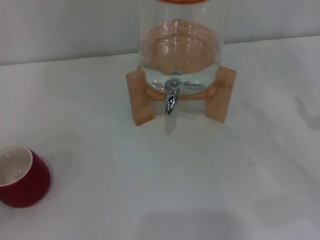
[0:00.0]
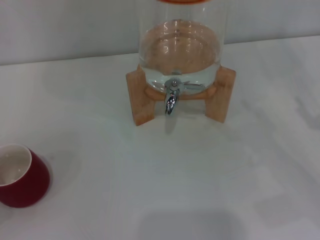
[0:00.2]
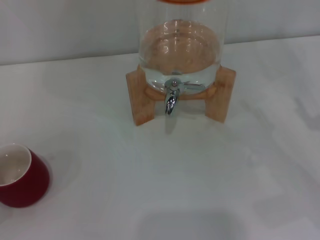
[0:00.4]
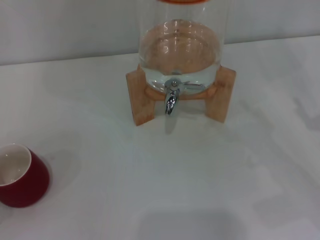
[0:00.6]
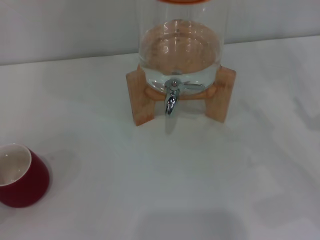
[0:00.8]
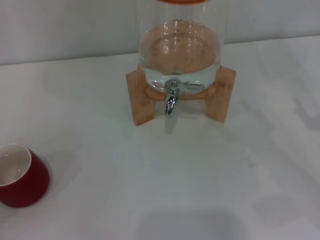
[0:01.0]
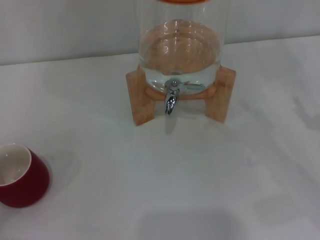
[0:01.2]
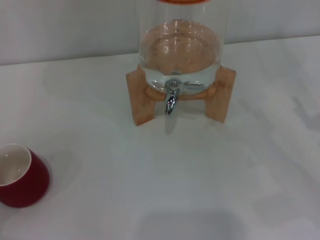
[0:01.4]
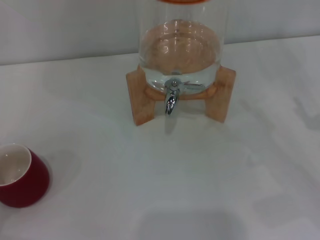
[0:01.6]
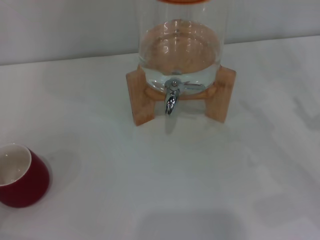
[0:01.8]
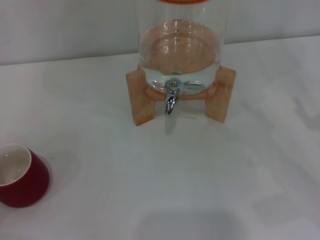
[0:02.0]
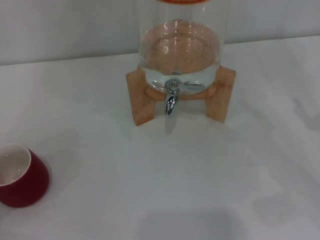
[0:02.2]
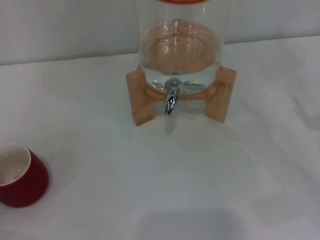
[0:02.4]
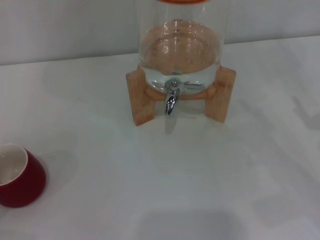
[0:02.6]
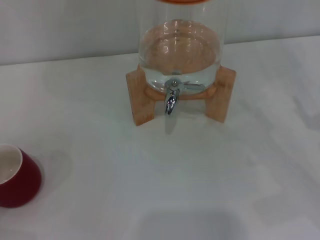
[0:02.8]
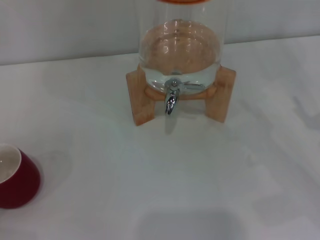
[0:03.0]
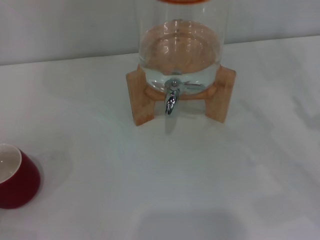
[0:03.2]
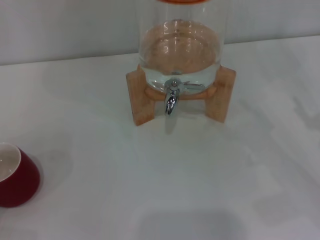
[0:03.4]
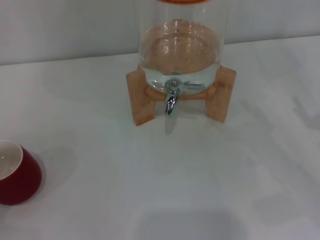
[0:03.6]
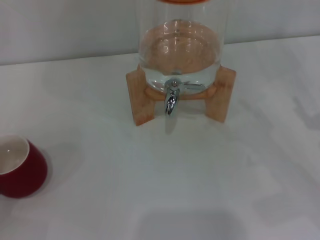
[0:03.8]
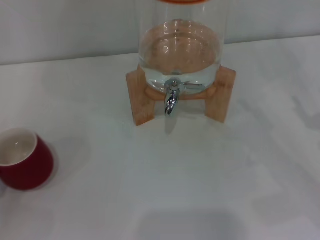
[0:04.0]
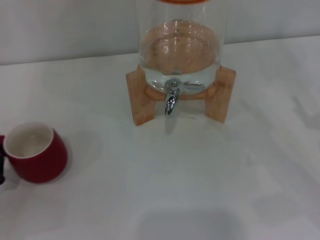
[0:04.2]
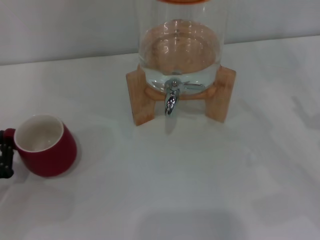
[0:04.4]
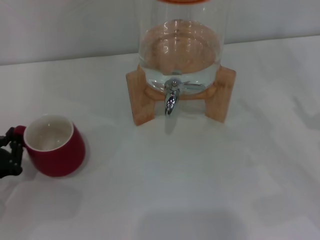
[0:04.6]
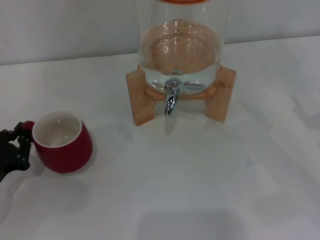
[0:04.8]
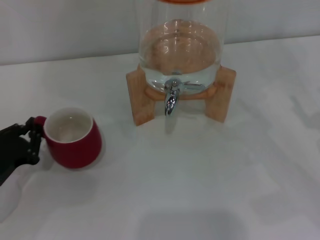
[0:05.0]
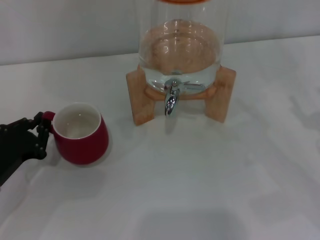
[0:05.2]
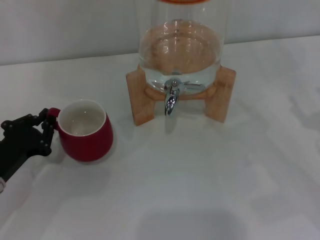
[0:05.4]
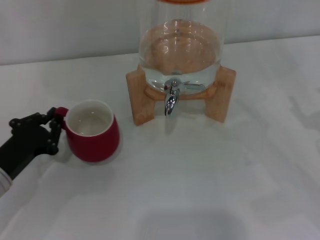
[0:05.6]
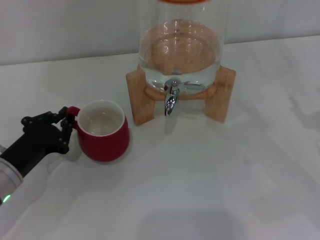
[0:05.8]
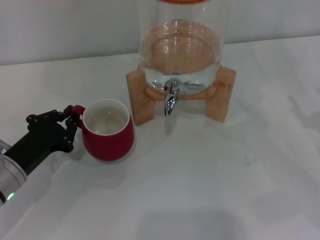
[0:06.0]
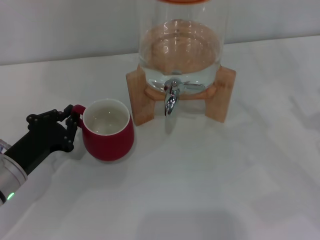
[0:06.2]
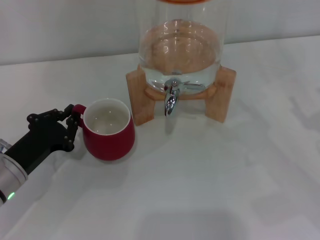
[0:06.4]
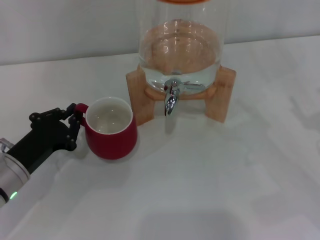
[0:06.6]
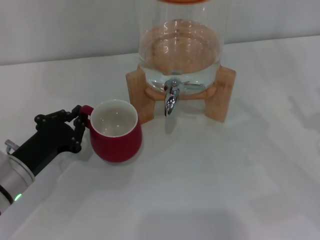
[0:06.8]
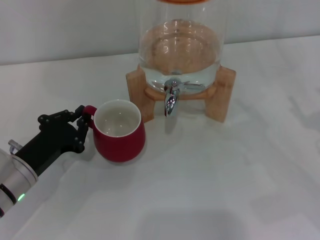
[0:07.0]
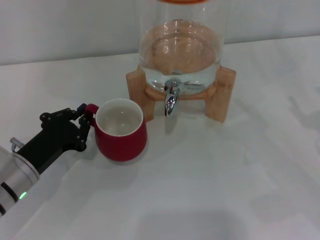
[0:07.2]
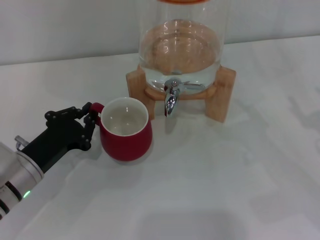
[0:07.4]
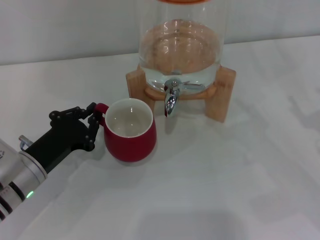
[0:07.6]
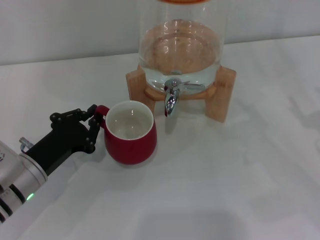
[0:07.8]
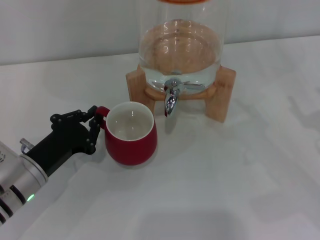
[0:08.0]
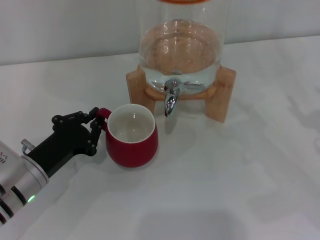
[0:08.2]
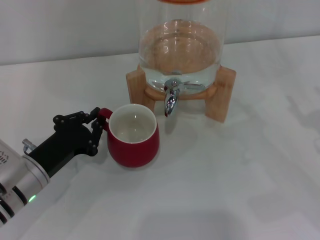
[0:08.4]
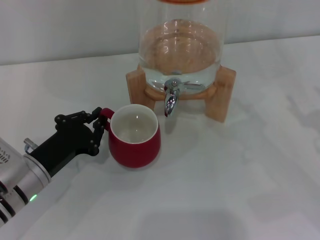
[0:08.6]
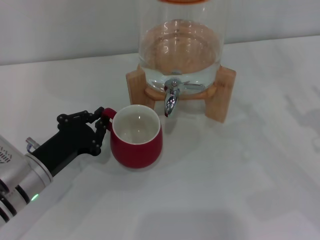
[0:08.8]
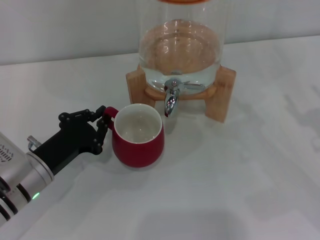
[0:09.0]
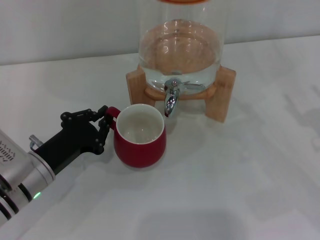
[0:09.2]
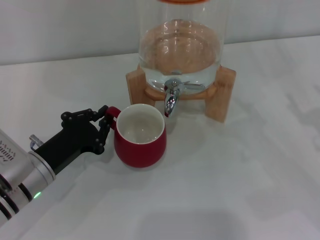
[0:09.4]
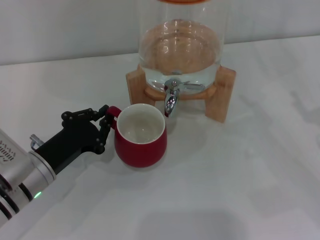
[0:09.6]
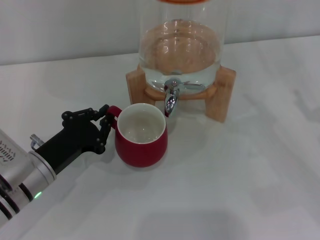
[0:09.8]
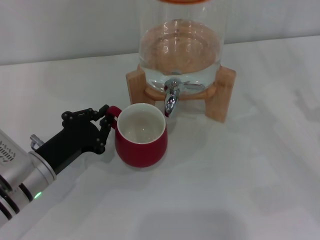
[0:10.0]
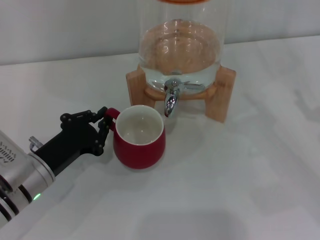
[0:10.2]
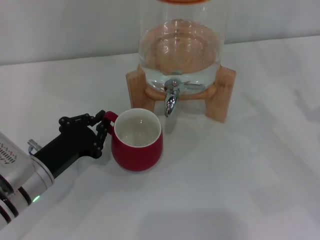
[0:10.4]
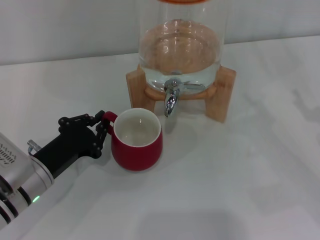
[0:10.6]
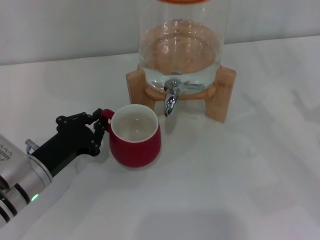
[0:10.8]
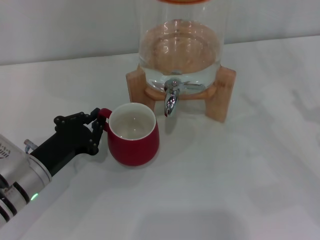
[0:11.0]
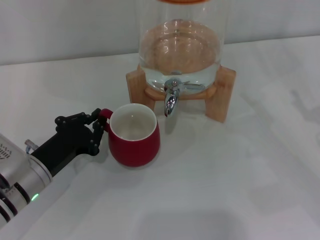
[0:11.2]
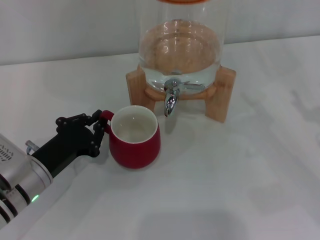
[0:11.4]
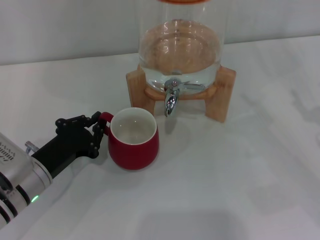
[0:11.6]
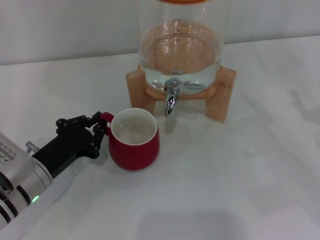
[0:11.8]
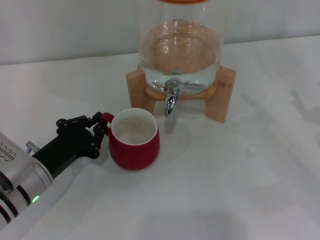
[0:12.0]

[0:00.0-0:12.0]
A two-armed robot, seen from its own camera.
Task of the whole recording: the left gripper pick up the red cup and place it horizontally under the faucet, the right gripper turn on the faucet to fill the cup, and then turn off the faucet.
0:00.0 to 0:01.6: Both grippers stay about where they are.
0:01.6 to 0:03.0: The left gripper closes up.
0:03.0 to 0:04.4: The left gripper moves forward, roughly 5 cm.
0:04.4 to 0:06.0: The left gripper shifts some 5 cm to the right.
0:06.0 to 0:07.6: The grippers make only small movements.
0:07.6 to 0:12.0: Both grippers stay about where they are.

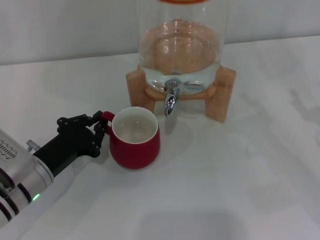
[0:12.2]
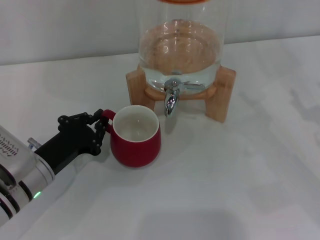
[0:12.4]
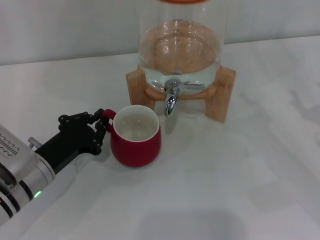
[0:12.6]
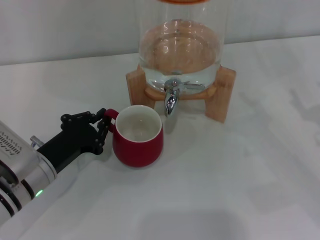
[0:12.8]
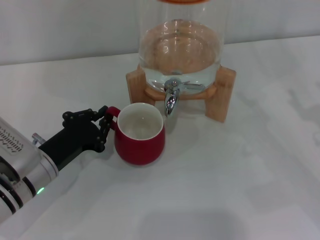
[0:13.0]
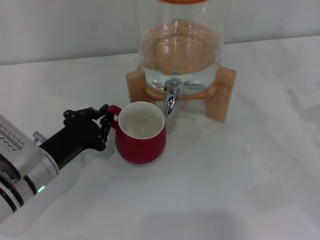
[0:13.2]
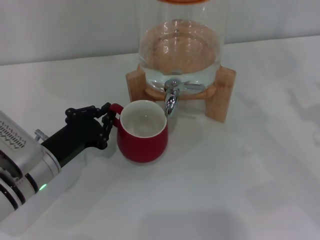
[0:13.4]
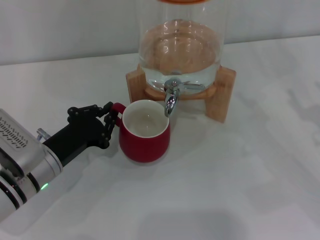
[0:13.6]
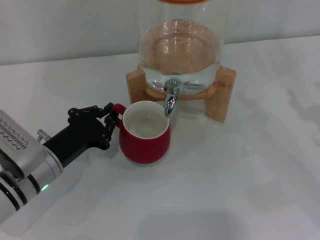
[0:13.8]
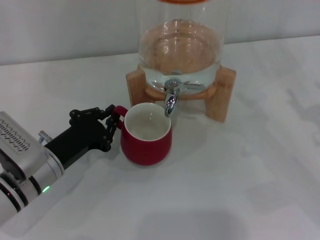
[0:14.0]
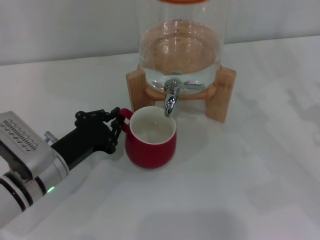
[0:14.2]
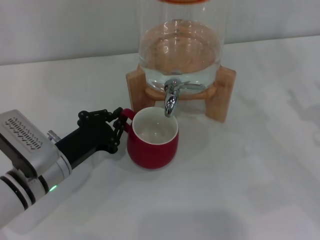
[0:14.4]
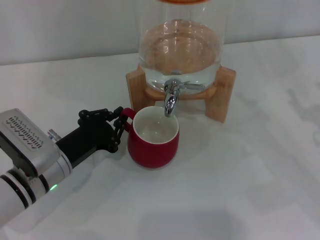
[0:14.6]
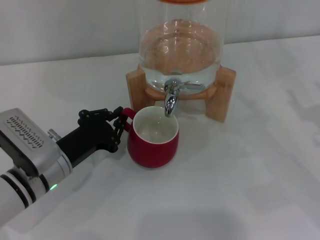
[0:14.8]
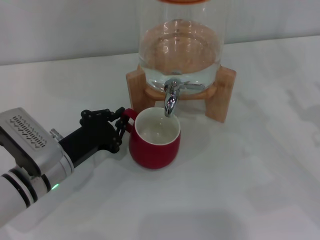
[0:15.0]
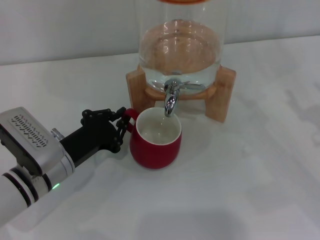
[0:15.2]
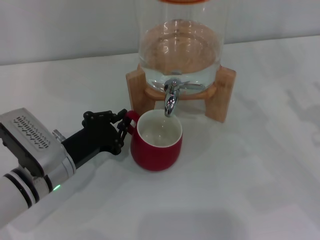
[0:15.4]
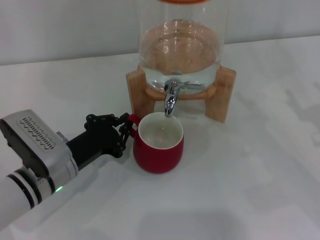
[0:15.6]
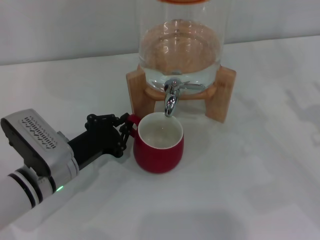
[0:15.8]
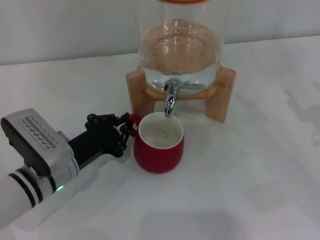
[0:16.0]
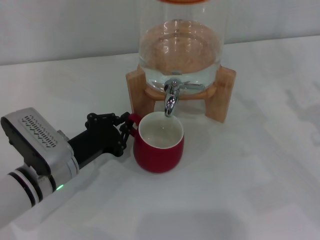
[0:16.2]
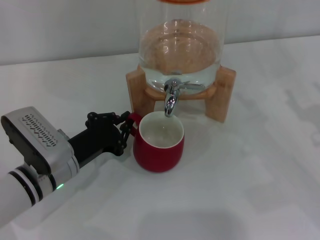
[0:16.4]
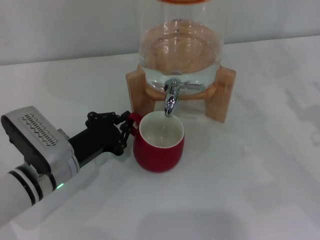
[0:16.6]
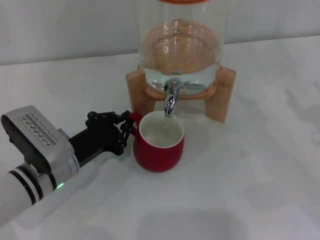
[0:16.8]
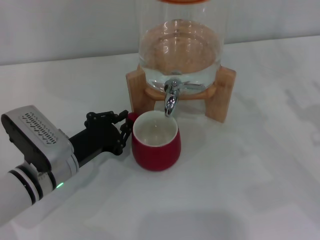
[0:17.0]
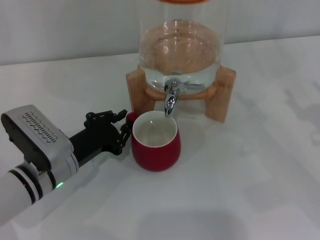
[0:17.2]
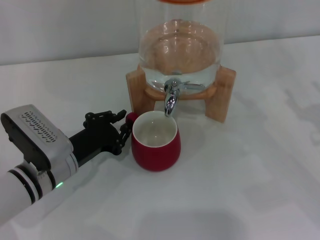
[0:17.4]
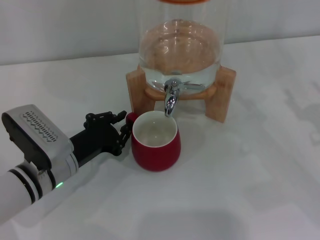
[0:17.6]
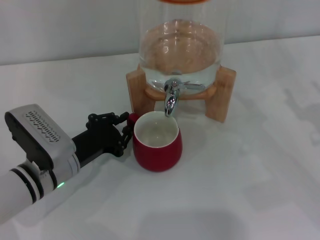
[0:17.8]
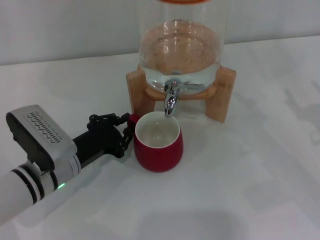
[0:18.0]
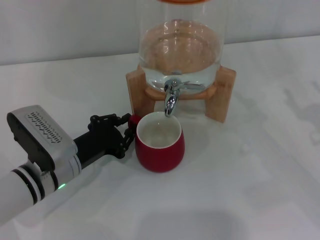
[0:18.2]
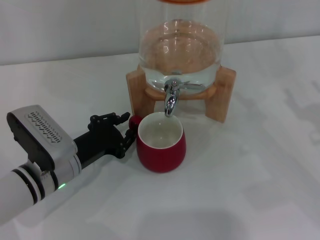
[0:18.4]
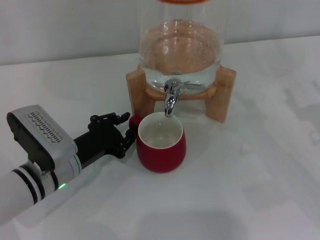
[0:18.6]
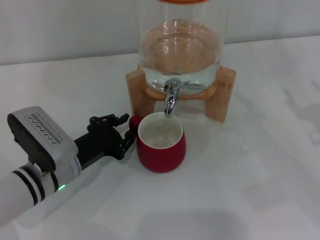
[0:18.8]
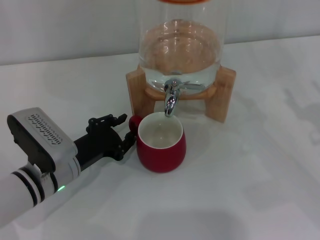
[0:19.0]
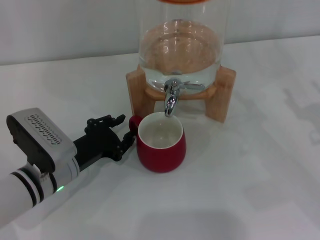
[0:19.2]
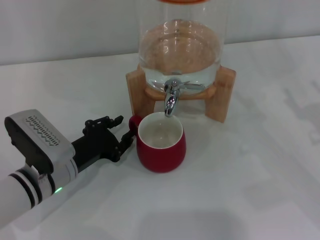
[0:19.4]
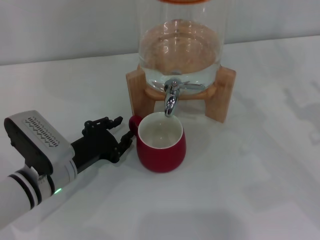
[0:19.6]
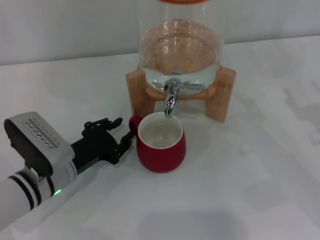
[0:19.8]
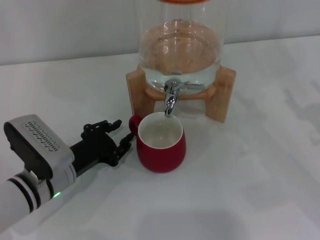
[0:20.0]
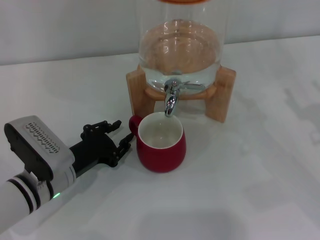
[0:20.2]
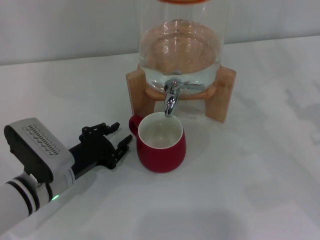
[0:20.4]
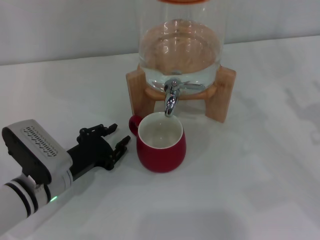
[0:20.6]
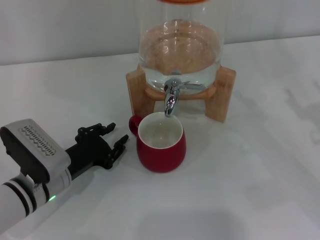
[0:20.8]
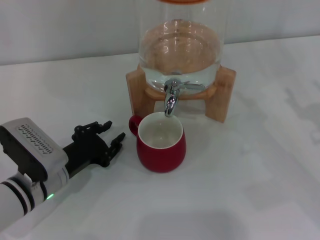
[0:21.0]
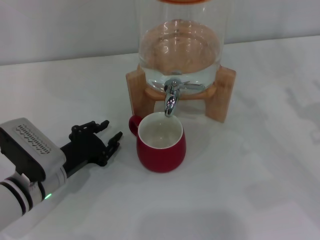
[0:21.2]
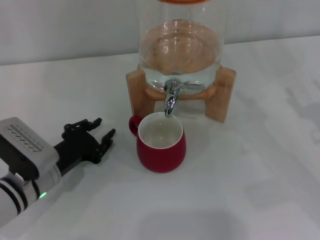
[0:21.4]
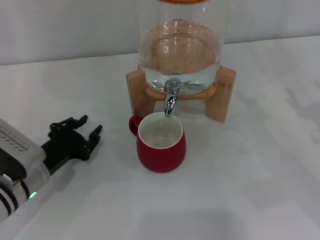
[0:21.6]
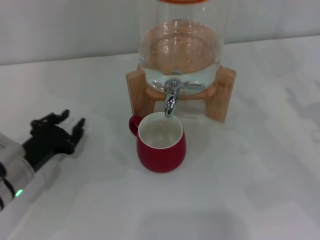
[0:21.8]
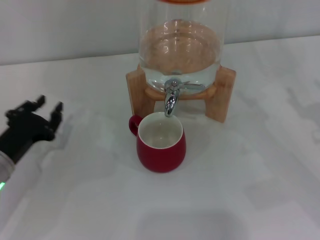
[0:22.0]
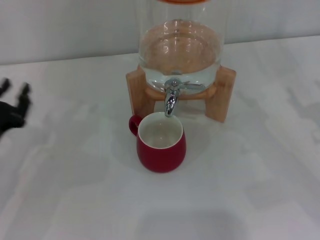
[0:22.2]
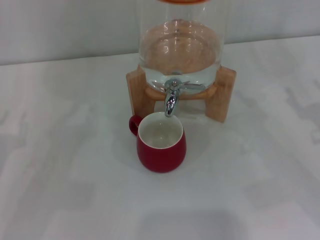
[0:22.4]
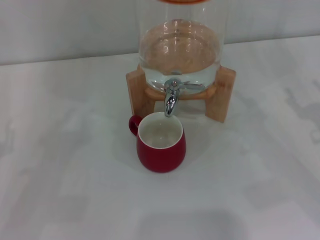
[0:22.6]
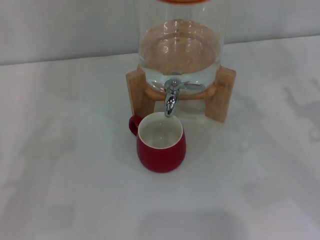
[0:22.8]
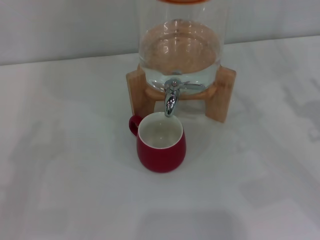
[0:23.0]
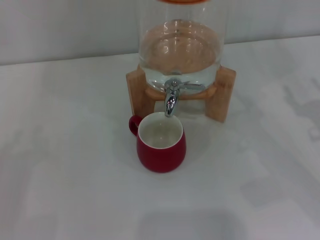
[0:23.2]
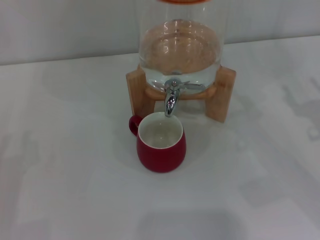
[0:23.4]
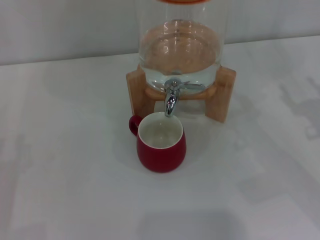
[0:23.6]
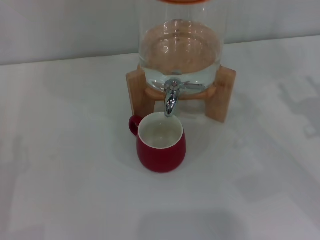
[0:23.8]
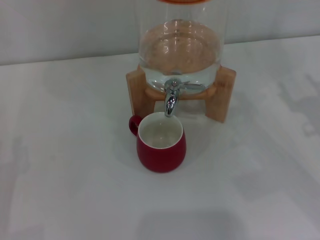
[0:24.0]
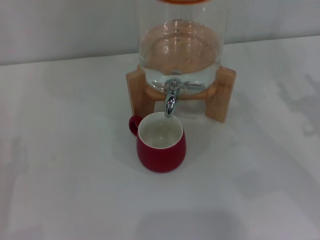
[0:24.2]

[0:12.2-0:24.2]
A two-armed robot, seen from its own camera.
Task of the whole recording: the left gripper pick up the red cup and place it horizontally under the faucet, the right gripper turn on the faucet to fill the cup, and then turn off the faucet.
Step, 0:12.2 to 0:20.4: Move the cup beneath the water dispenser nozzle with the left gripper.
0:12.2 to 0:15.2: The grippers stay close to where they were, moving slightly.
0:15.2 to 0:16.6: Both grippers stay put.
0:16.6 to 0:18.2: Both grippers stay about where they are.
0:18.2 to 0:19.8: Both grippers stay about where they are.
0:19.8 to 0:21.2: The grippers make only small movements.
0:21.2 to 0:22.6: The left gripper moves to the left and backward, roughly 15 cm.
